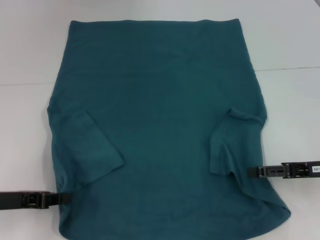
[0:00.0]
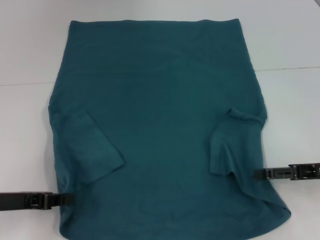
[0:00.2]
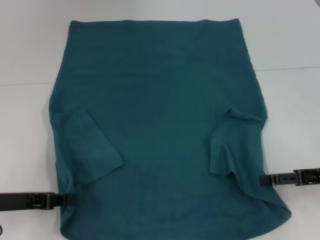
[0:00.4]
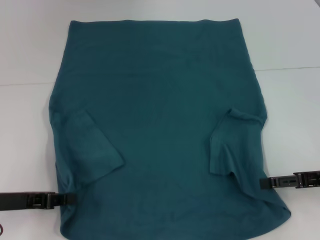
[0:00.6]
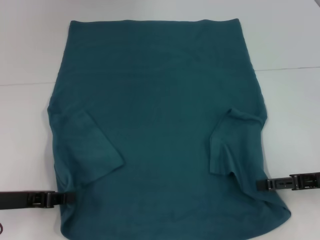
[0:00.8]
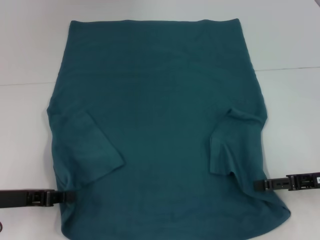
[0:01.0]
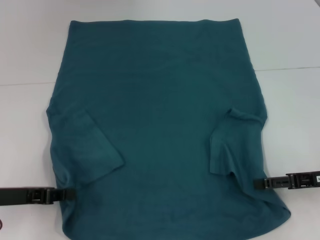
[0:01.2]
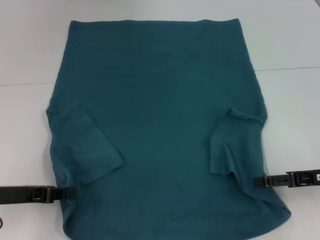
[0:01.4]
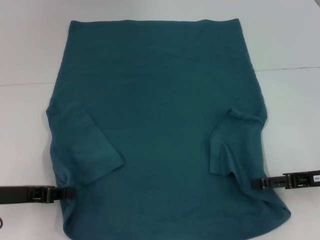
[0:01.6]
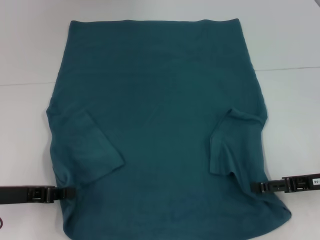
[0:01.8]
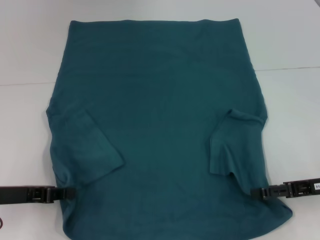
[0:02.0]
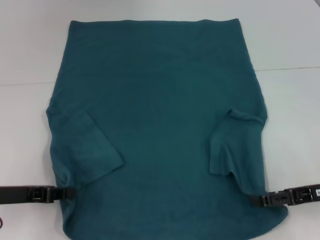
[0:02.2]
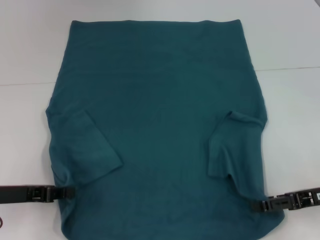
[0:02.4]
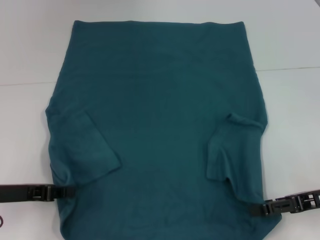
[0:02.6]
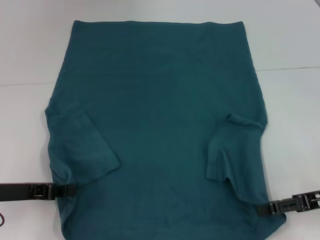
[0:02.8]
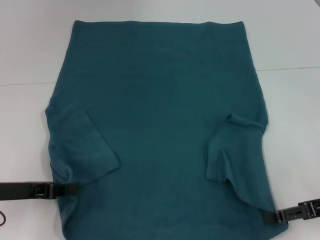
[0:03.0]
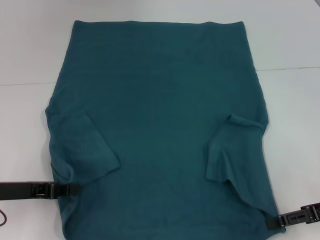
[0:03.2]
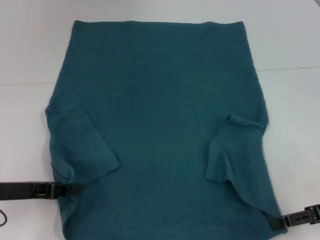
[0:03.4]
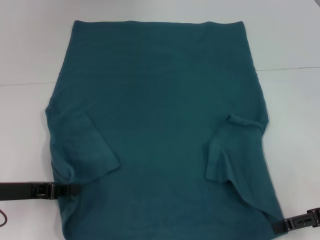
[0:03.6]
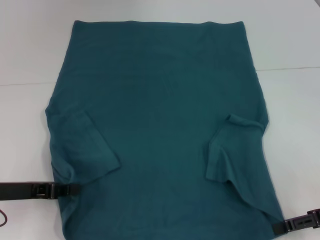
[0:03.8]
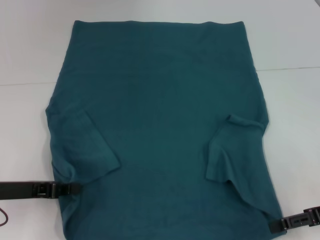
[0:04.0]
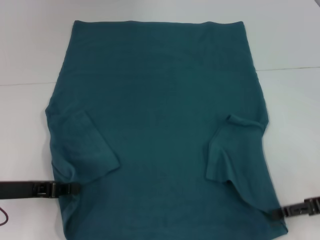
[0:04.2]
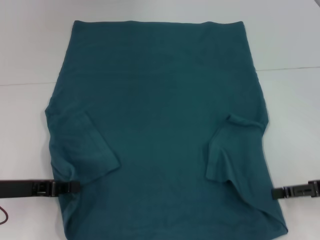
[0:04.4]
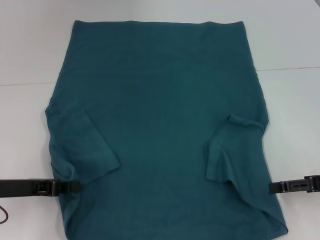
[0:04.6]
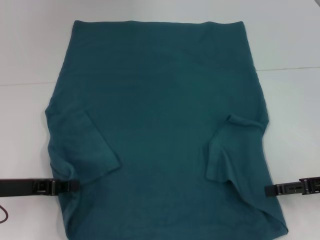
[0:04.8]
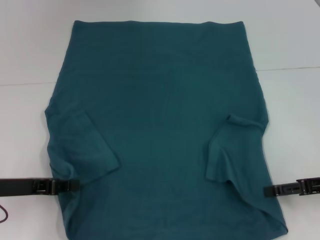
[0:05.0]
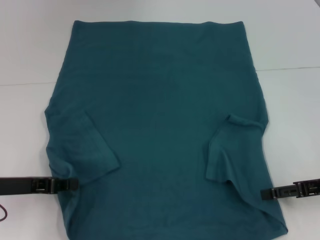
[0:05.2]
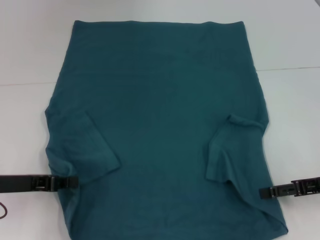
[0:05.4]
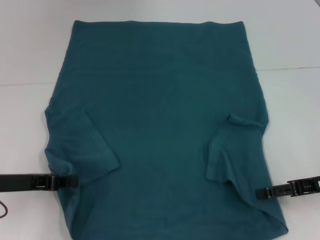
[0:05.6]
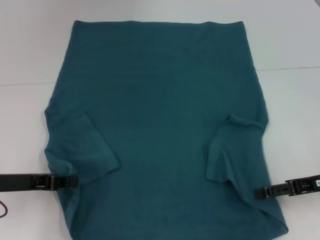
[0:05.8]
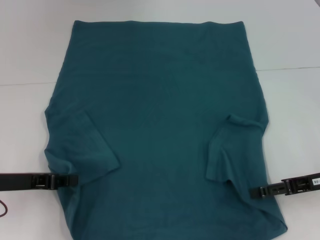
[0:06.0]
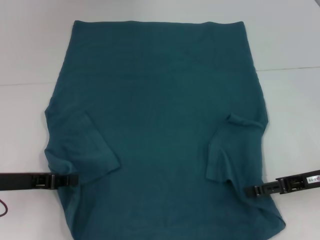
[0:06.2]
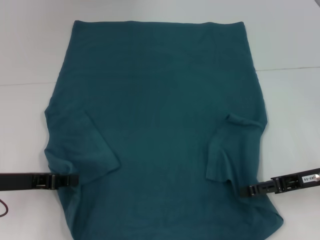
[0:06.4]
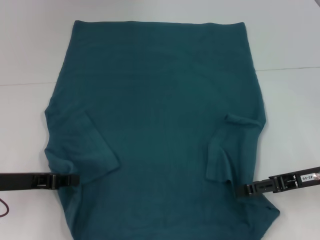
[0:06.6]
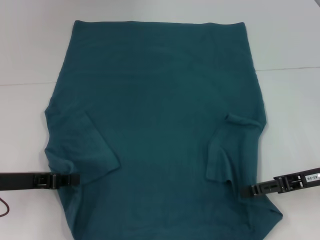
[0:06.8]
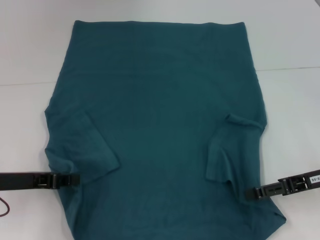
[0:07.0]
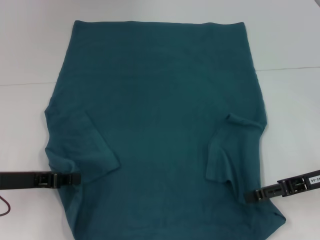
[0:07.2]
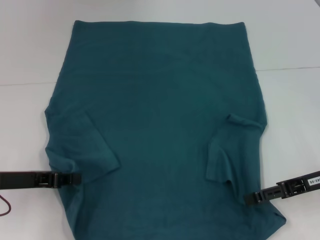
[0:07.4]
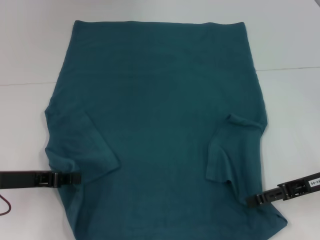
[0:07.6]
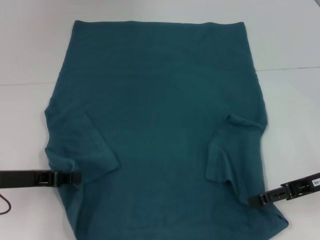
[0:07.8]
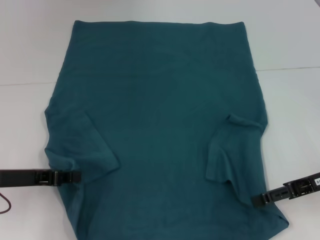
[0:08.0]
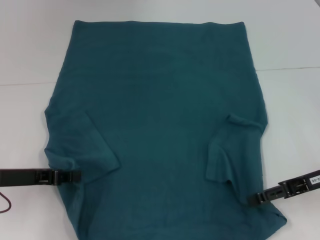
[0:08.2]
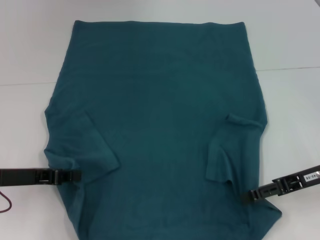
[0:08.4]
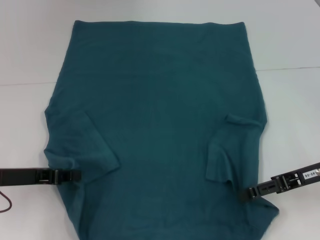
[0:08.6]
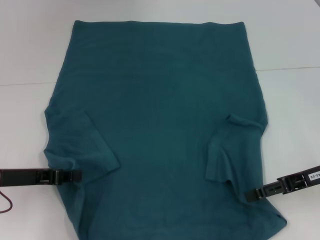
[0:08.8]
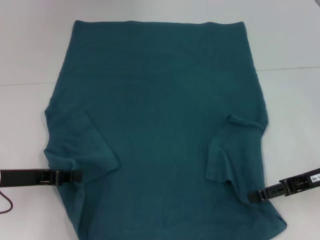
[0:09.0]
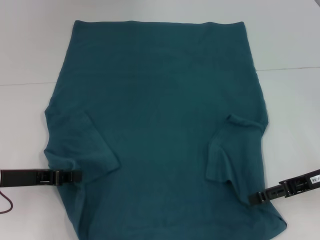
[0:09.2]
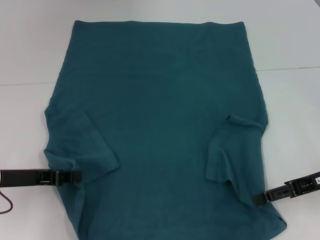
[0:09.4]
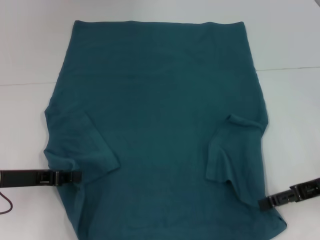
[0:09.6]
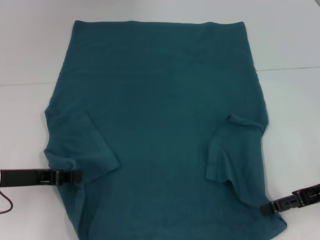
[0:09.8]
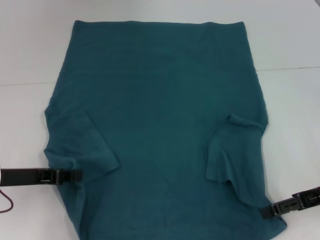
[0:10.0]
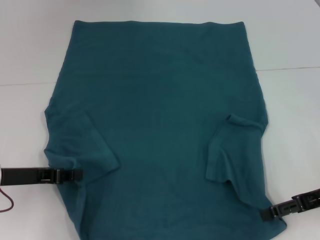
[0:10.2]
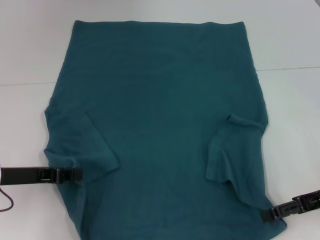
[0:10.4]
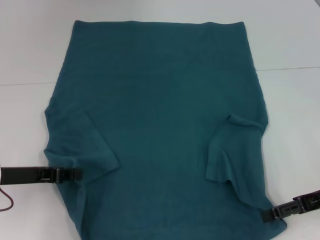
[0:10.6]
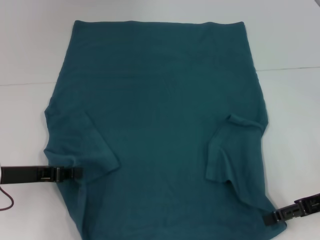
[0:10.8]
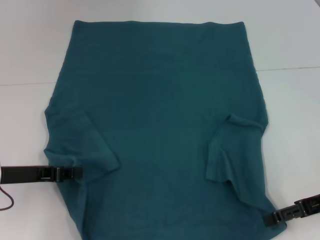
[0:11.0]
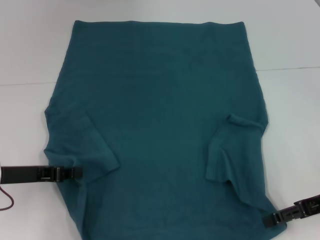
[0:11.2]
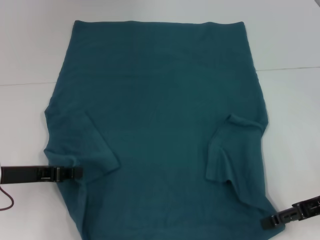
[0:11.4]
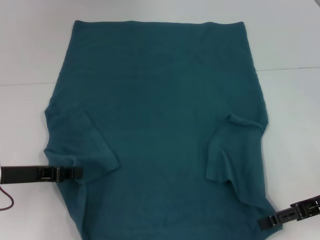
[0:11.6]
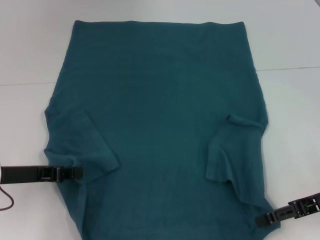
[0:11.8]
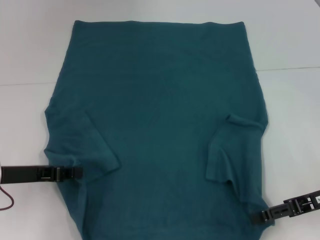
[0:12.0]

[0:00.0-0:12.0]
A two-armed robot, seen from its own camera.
0:00.0 to 0:10.4: The grippers stay close to where they were, moving slightly.
0:10.4 to 0:12.0: The grippers move only a little.

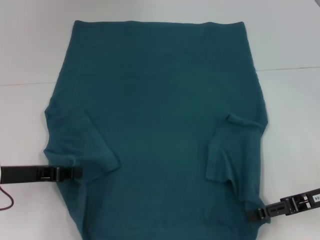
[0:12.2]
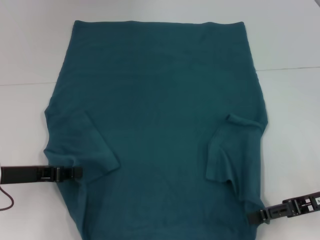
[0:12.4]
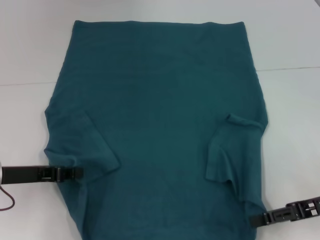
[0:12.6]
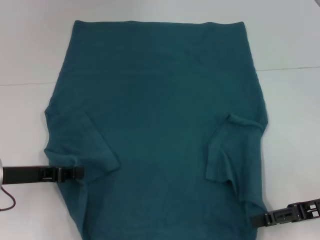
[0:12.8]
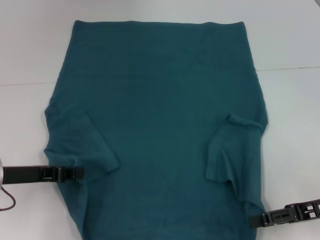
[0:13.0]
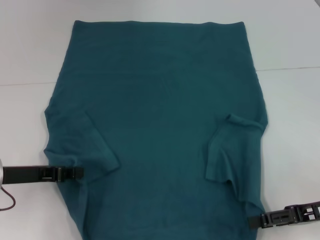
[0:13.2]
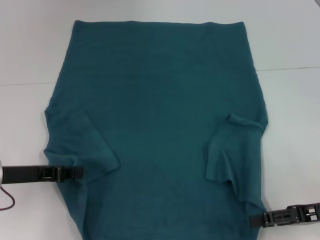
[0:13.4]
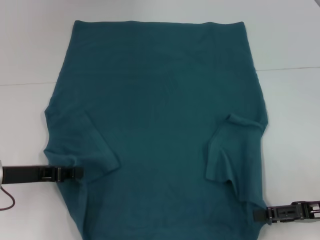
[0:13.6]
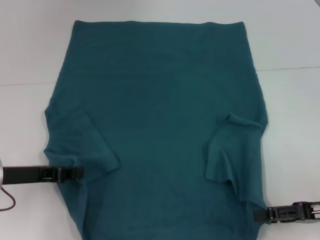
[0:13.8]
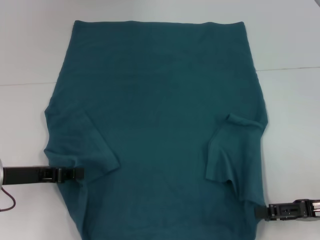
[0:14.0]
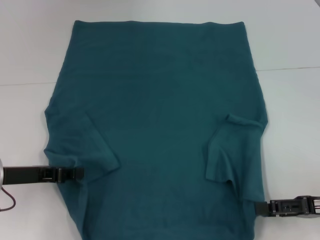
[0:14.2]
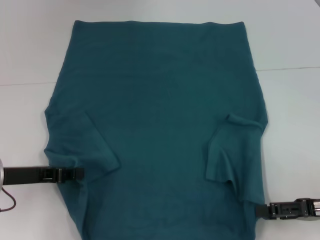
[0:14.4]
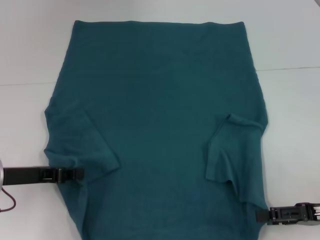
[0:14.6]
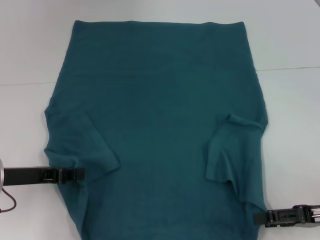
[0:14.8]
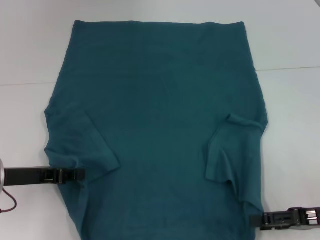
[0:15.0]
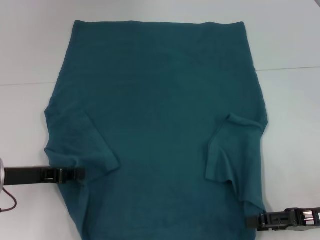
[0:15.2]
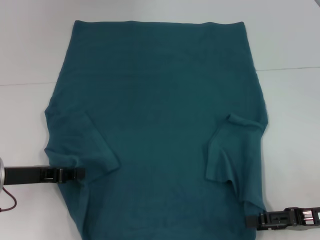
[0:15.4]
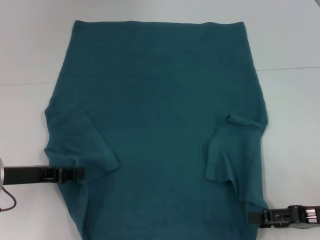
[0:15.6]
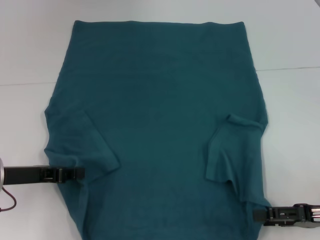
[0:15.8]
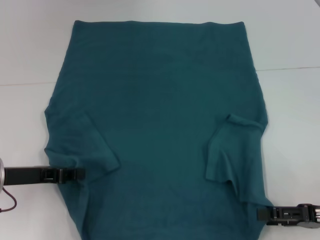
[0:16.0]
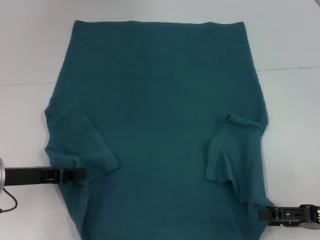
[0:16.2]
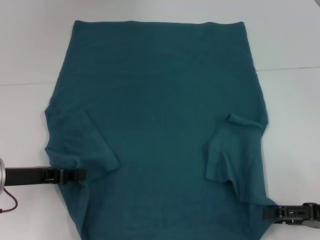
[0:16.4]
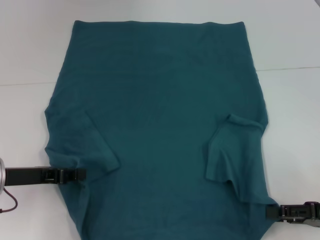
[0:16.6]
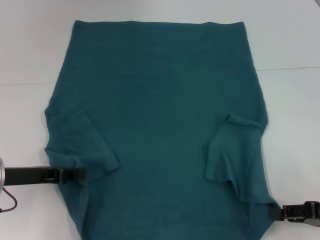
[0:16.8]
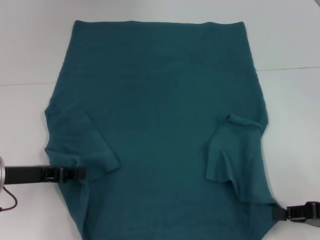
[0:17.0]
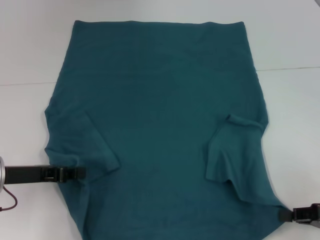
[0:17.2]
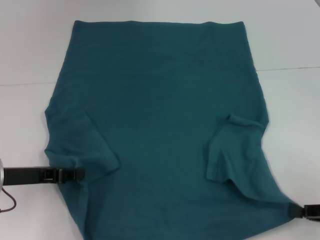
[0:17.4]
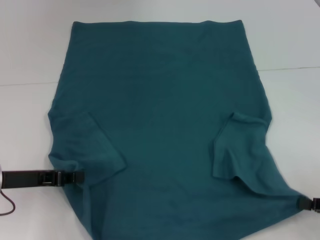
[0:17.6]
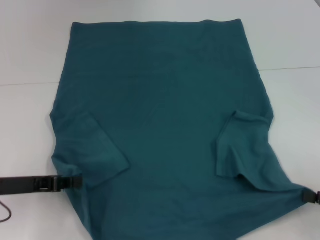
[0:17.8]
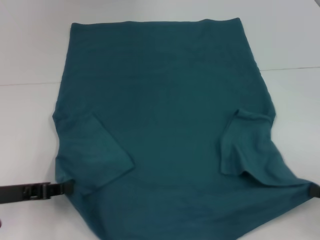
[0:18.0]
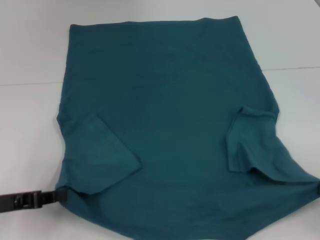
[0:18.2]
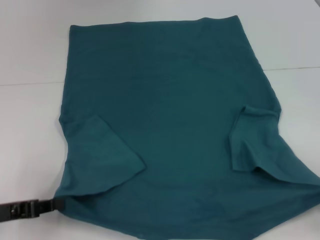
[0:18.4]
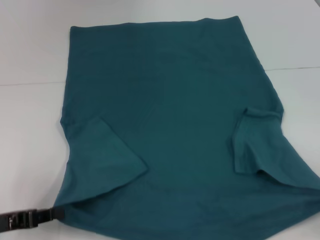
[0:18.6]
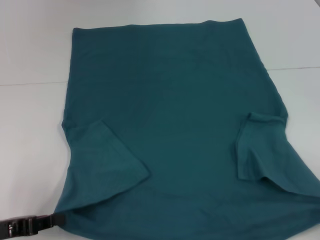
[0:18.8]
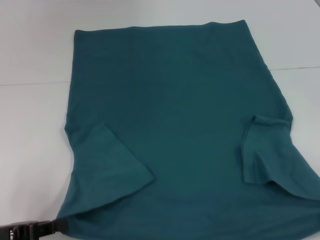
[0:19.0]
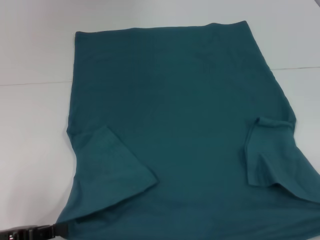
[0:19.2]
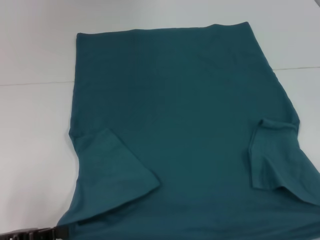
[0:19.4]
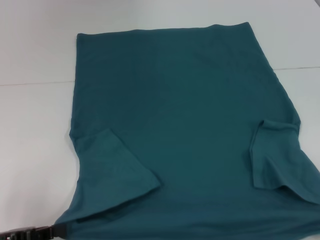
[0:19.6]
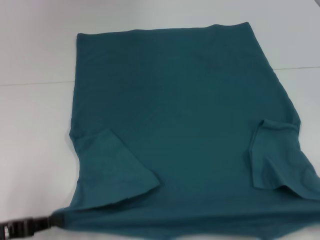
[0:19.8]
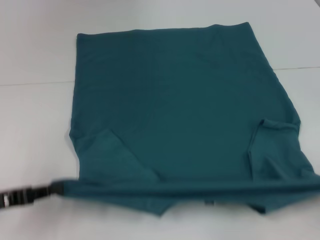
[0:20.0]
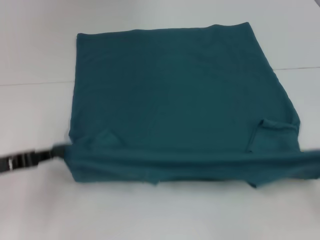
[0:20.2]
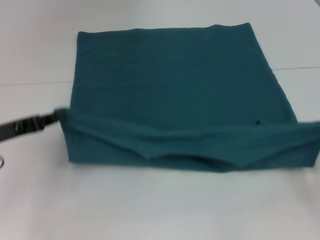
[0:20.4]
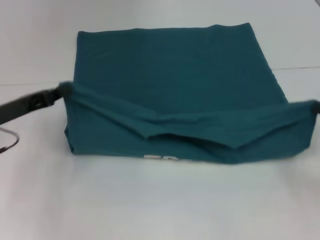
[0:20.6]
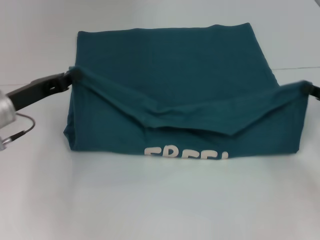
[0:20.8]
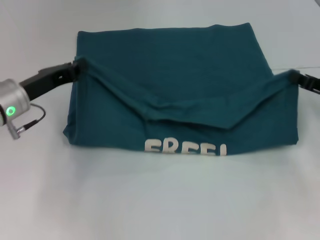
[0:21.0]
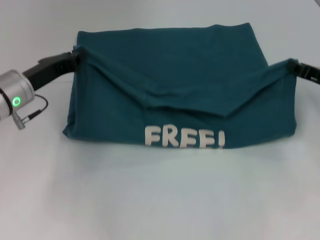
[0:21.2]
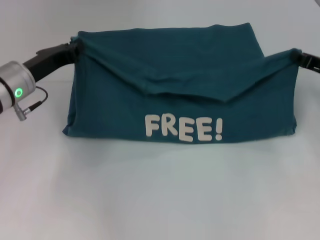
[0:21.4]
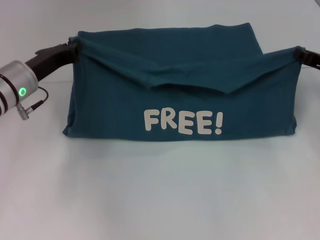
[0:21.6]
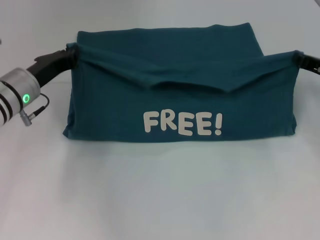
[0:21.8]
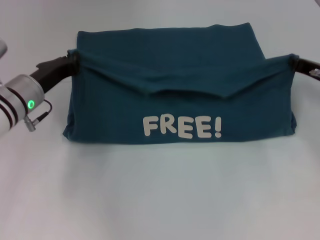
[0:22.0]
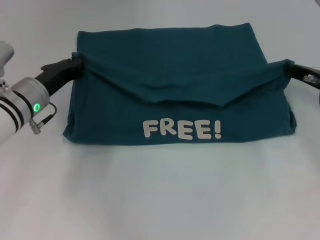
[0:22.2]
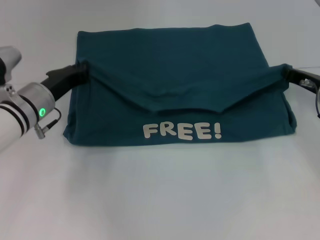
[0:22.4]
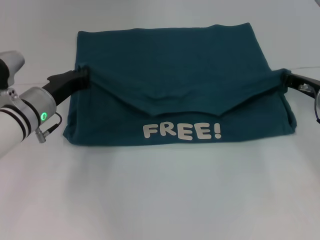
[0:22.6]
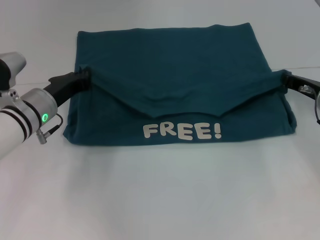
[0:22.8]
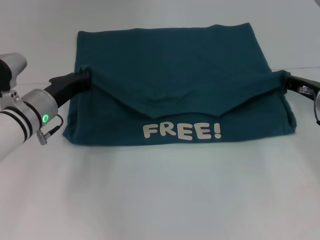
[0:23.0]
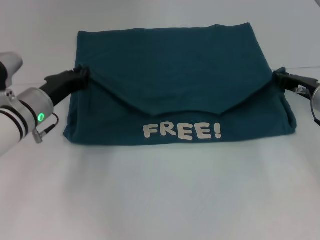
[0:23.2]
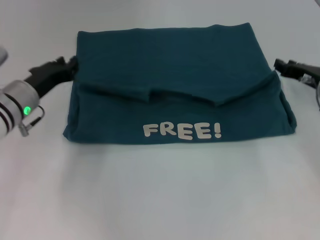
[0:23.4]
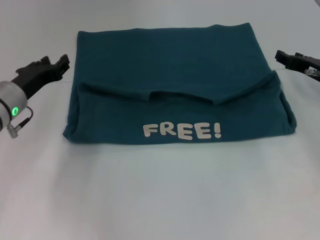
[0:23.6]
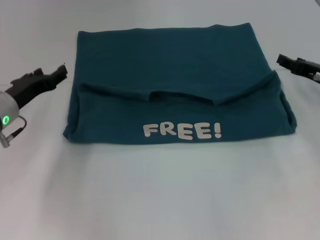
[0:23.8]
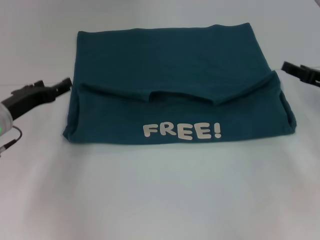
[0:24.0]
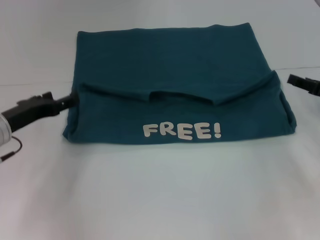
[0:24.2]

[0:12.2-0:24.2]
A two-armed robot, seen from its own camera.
Step, 0:12.2 to 0:17.0: Grab the bottom right corner with your right hand.
Step, 0:17.2 to 0:23.4: Fold the clothes to the left.
Step, 0:17.2 to 0:23.4: Fold the clothes to the right.
0:12.2 to 0:15.2: The grippers stay close to where they were, moving slightly.
0:15.2 to 0:16.6: There are only small adjustments of the grippers.
0:16.6 to 0:18.2: The left gripper moves about 5 cm; the right gripper heads to the right, covering some 5 cm, and closes its fingers.
0:18.2 to 0:19.8: The right gripper moves some 5 cm.
0:19.8 to 0:21.2: The left gripper travels forward and to the right by some 20 cm. The right gripper goes about 25 cm forward and to the left.
0:21.2 to 0:22.6: There are only small adjustments of the grippers.
0:22.6 to 0:24.2: The left gripper goes approximately 5 cm to the left, and opens. Meanwhile the right gripper shifts about 5 cm to the right and backward, and opens its fingers.
